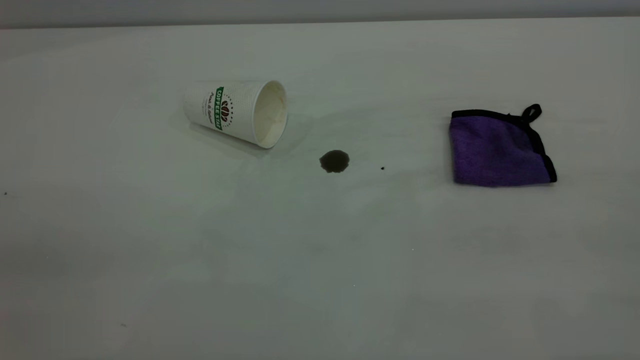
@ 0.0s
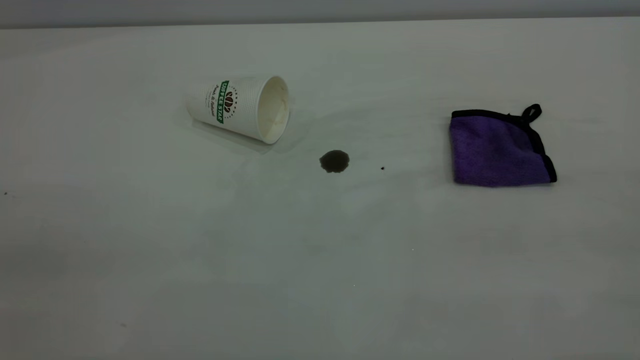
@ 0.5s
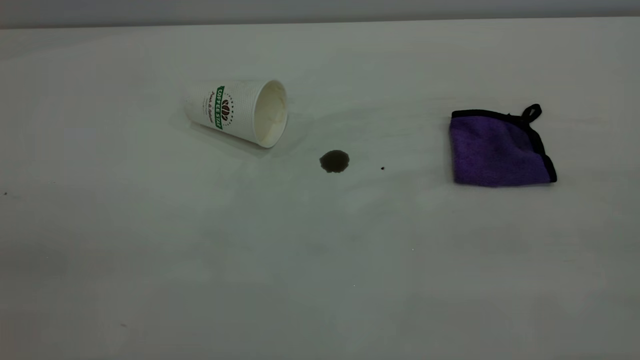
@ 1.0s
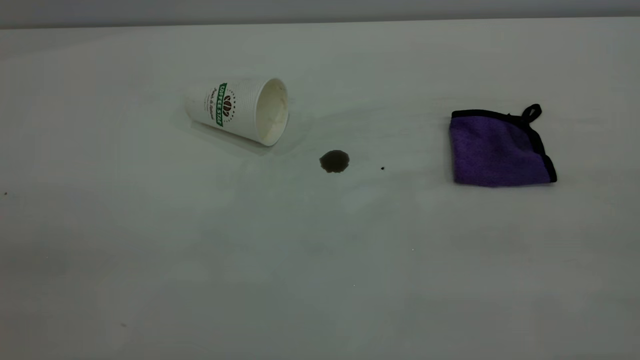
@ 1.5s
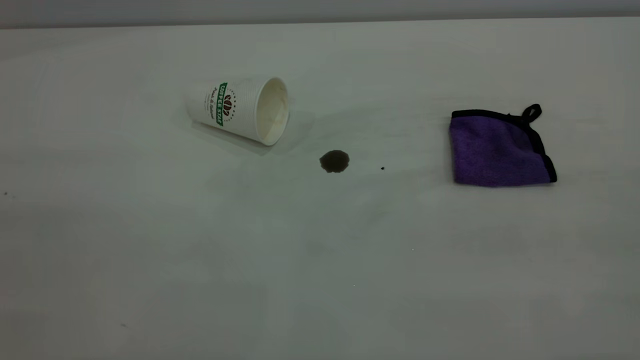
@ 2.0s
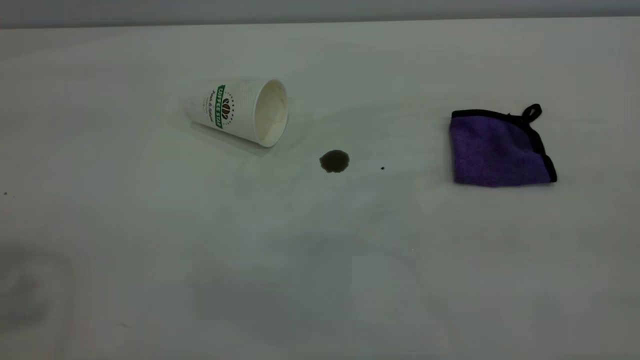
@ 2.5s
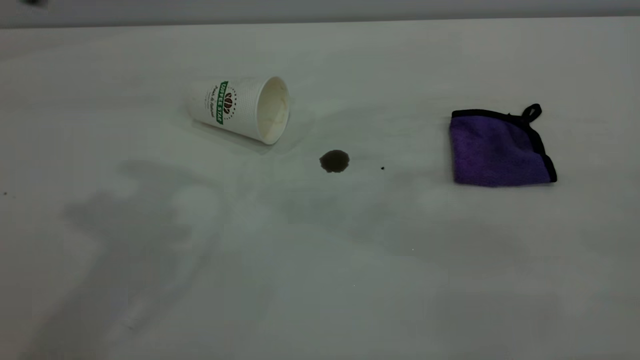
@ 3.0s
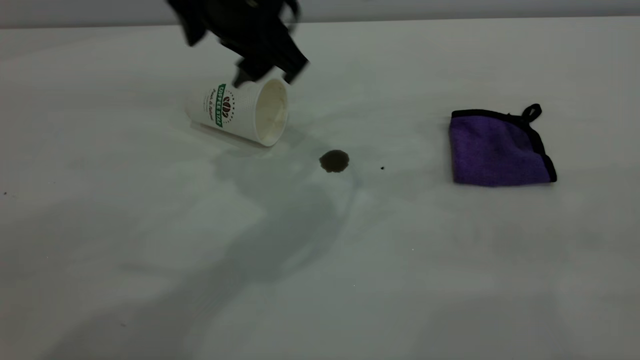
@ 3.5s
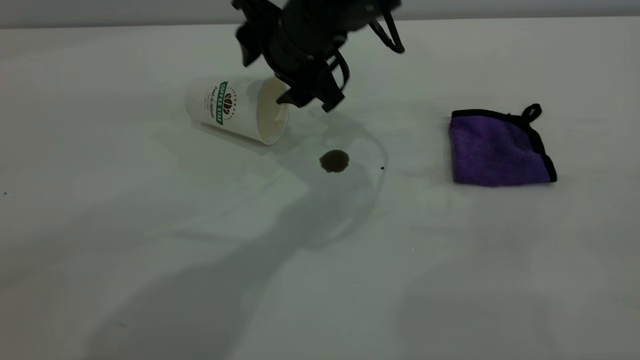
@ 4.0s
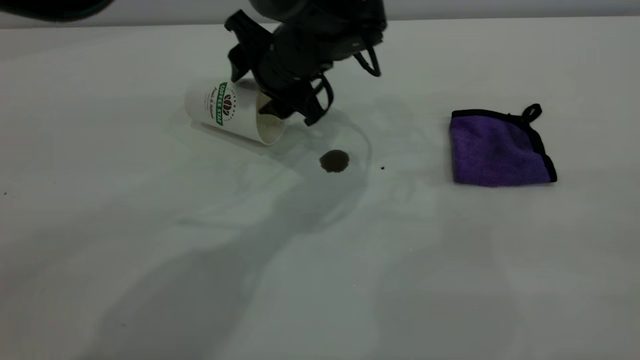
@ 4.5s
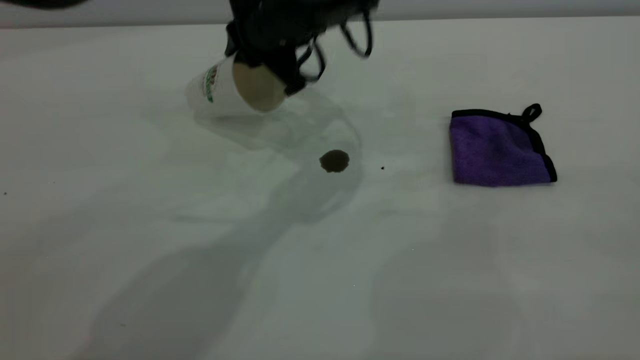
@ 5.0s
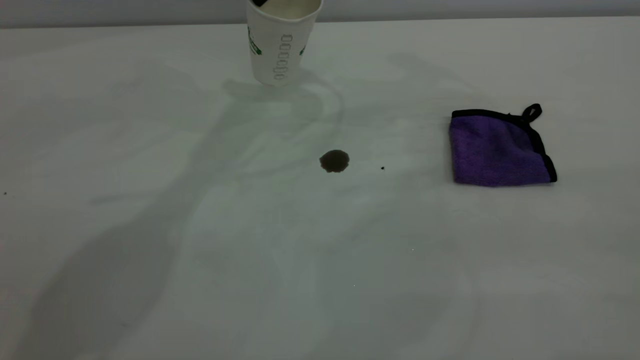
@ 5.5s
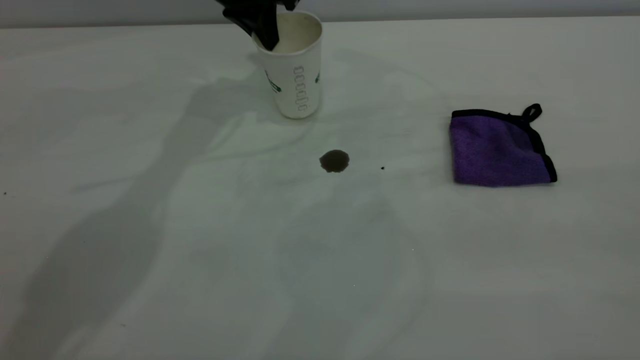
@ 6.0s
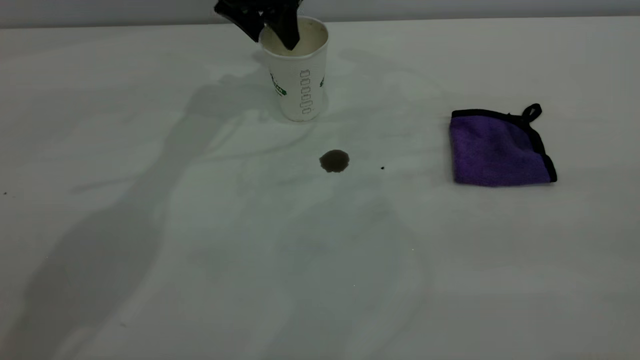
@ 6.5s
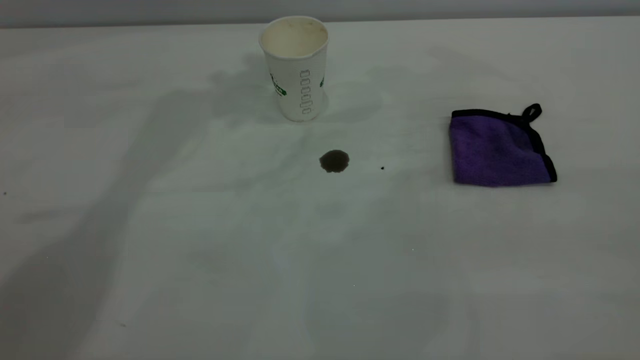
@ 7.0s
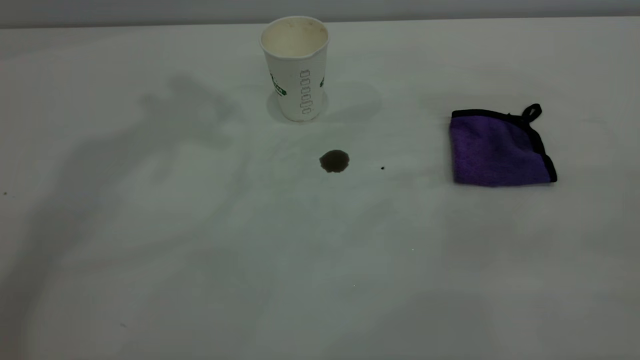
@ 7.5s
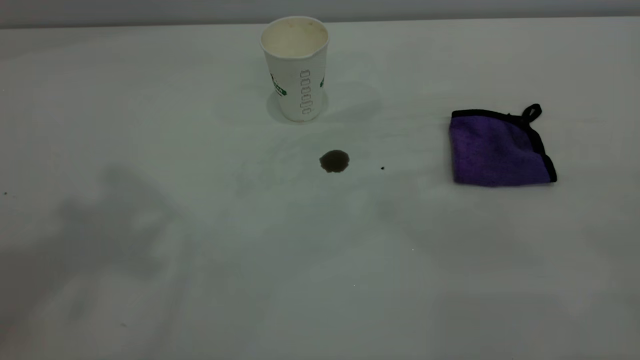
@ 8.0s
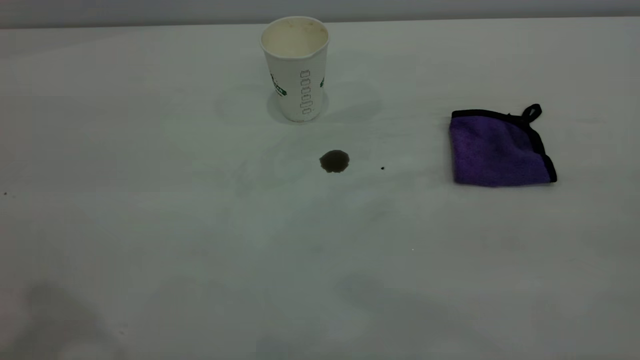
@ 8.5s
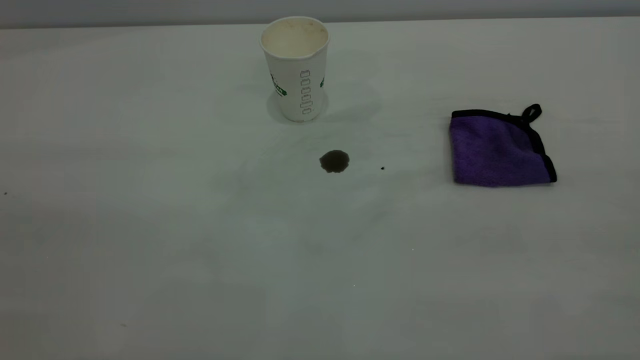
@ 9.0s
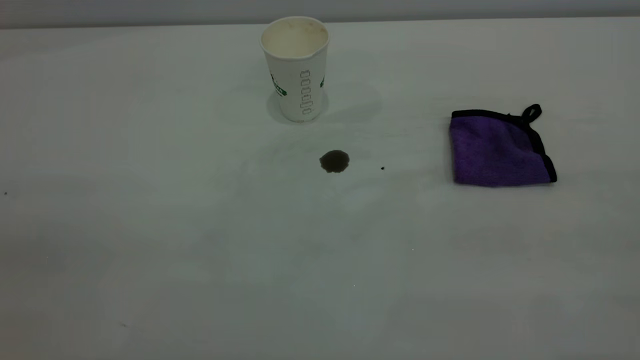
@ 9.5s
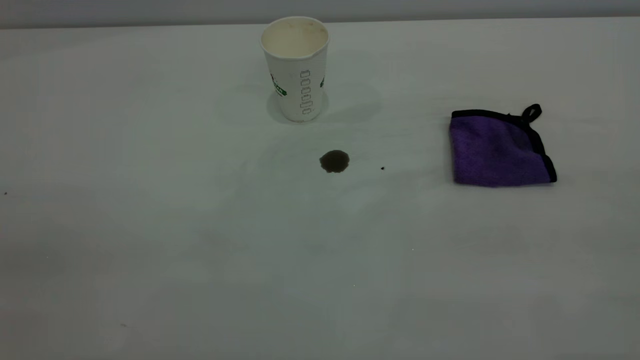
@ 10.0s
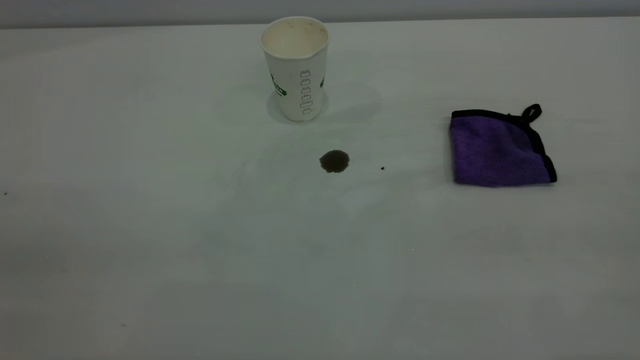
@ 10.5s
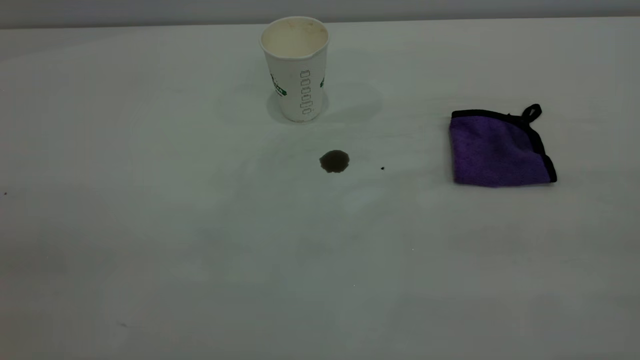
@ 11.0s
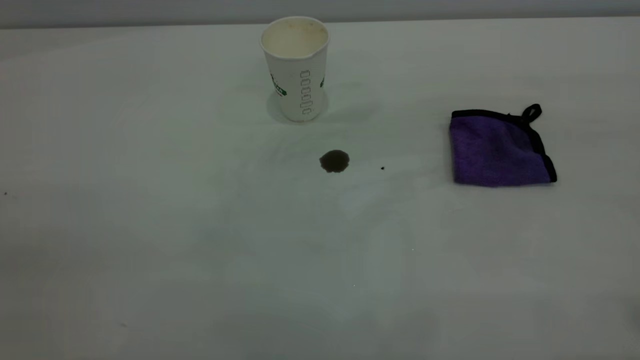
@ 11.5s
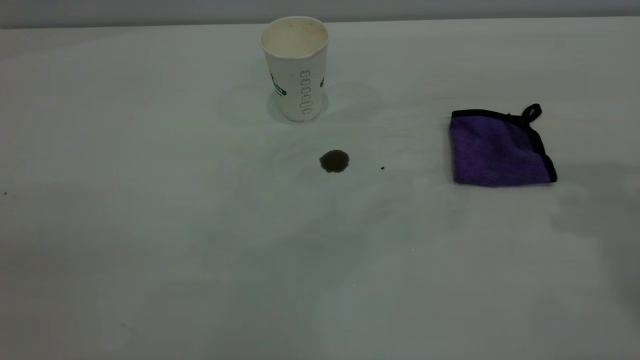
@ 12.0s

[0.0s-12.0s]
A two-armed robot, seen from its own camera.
Task of the whole recording: the left gripper pick up the fallen cup and place it upright, the right gripper grasp the purple rag and wipe the coffee stain on the table, the right gripper put the purple rag back in its original position.
Step, 0.0s to 6.5s: Stand the paper cup upright.
2.0s to 4.0s: The left gripper heads forward, to the right and downward, covering approximately 50 cm.
4.0s to 6.0s: The left gripper shifts about 15 cm forward and to the left, reaches about 10 cm upward, then returns, and closes.
6.0s to 8.0s: The left gripper shifts roughly 40 cm upward and backward, and opens its fingers.

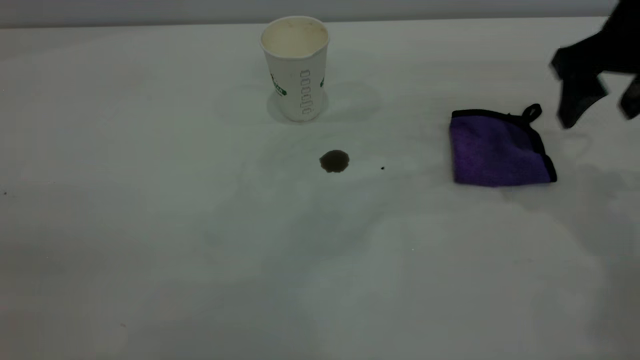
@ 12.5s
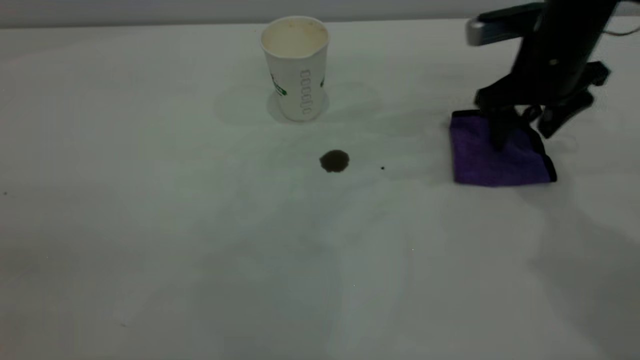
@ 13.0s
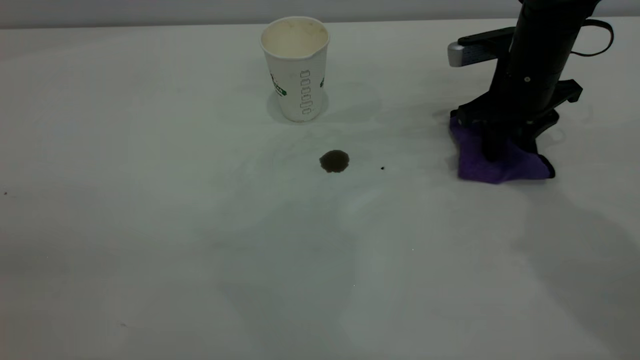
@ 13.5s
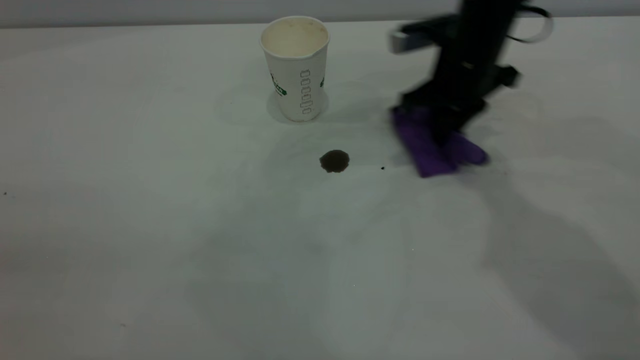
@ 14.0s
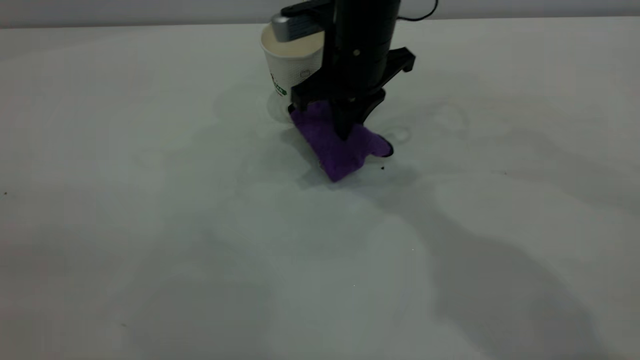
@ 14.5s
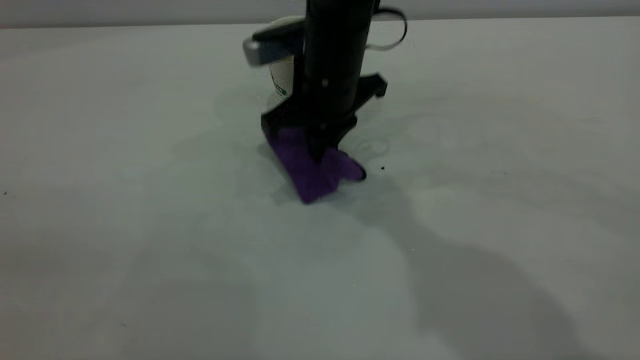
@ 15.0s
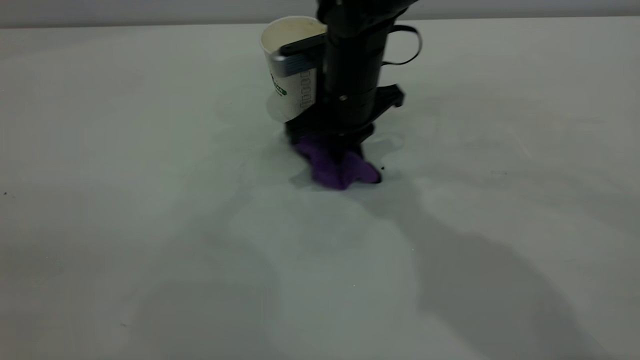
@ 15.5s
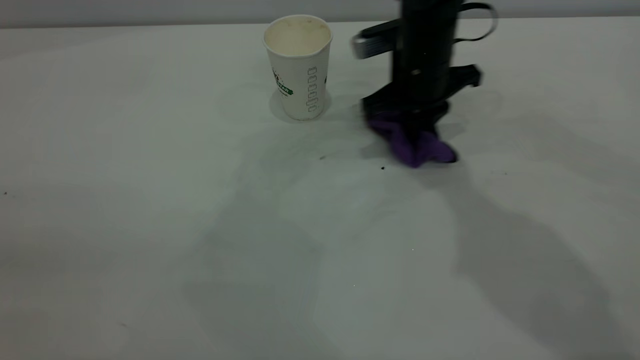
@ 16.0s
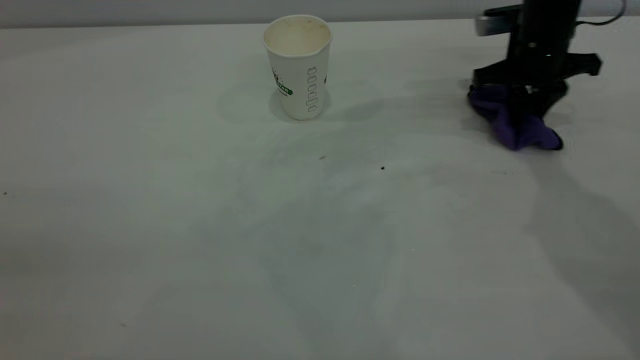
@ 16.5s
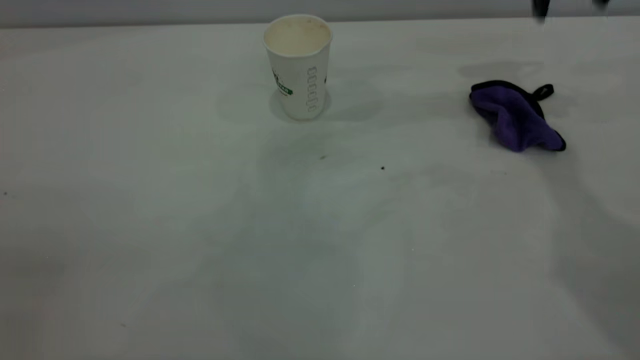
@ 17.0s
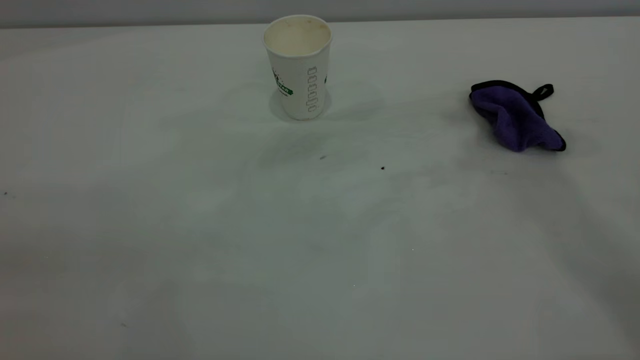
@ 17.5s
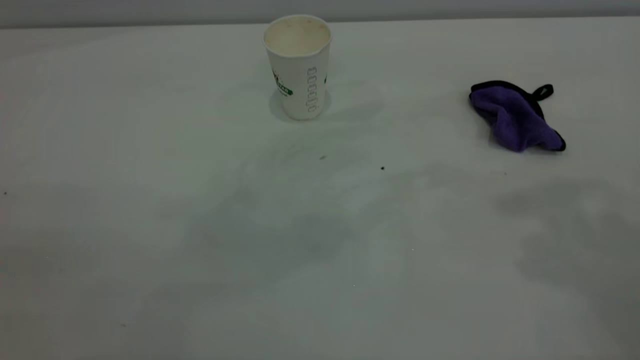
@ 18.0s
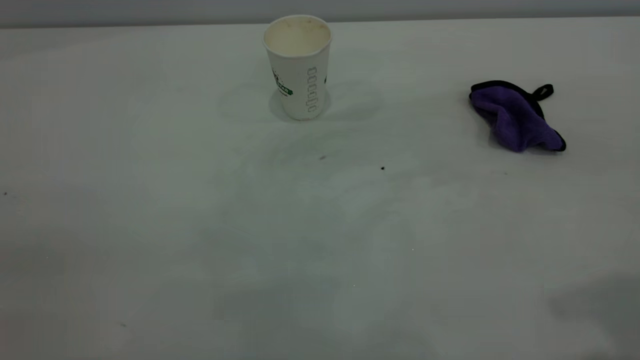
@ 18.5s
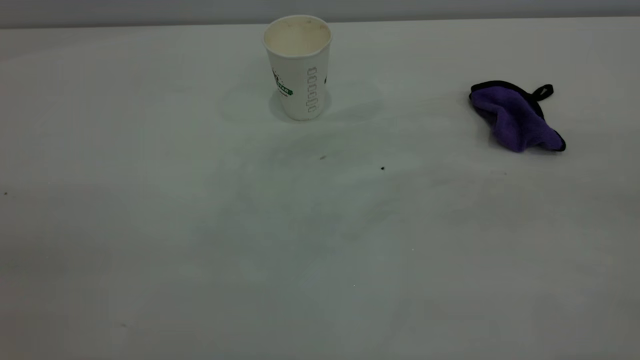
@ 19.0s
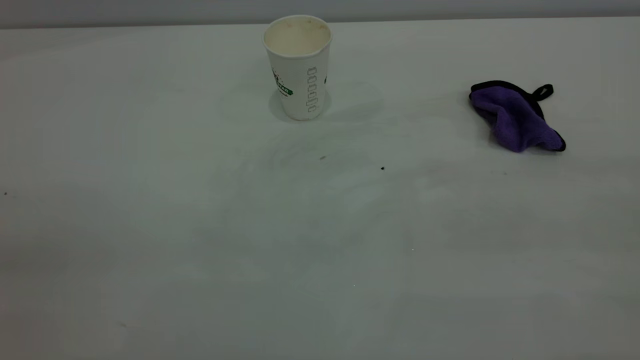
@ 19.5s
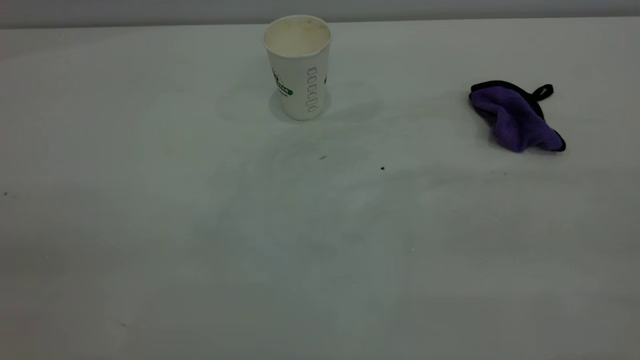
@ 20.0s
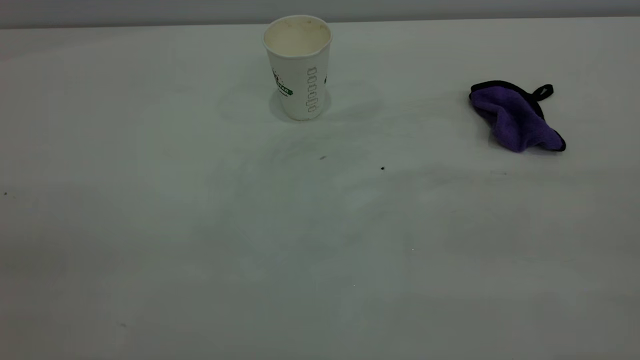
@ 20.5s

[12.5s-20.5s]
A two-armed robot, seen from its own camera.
Task of the whole recording: the left gripper pick up the fallen cup and place it upright, the right gripper grasp the purple rag and wipe the coffee stain on the table, the right gripper put the purple rag back in its original position.
Step, 12.5s to 16.5s: Wipe the stains off the table with a rag.
12.5s to 14.5s: The right gripper shifts roughly 25 cm to the left, and closes.
14.5s to 16.5s: The right gripper goes some 20 cm to the right, and opens.
16.5s to 18.5s: The right gripper is displaced backward and upward by approximately 50 cm, and opens.
